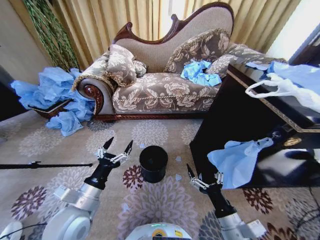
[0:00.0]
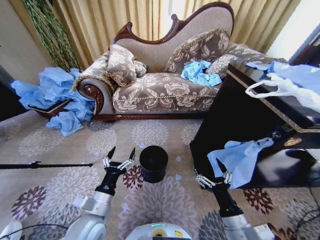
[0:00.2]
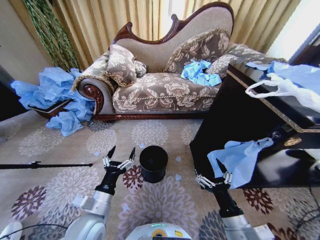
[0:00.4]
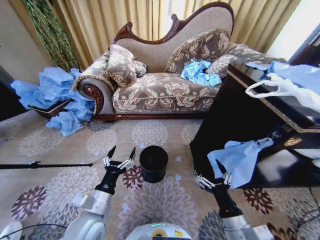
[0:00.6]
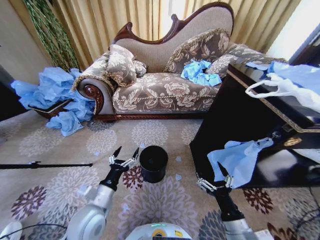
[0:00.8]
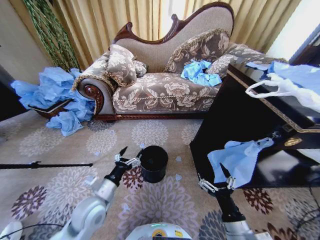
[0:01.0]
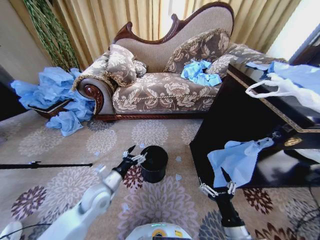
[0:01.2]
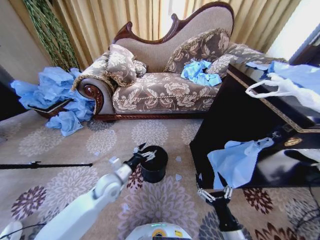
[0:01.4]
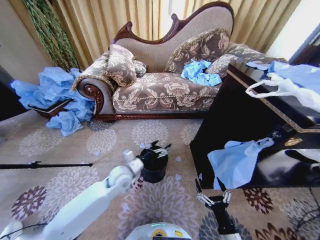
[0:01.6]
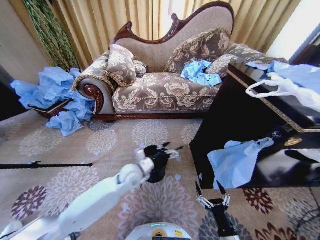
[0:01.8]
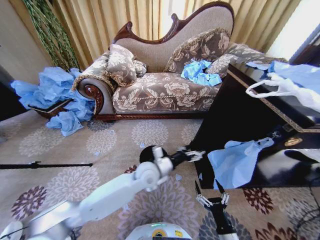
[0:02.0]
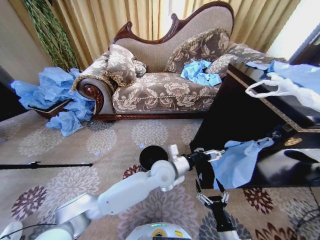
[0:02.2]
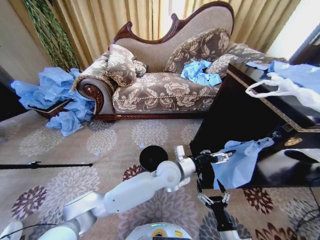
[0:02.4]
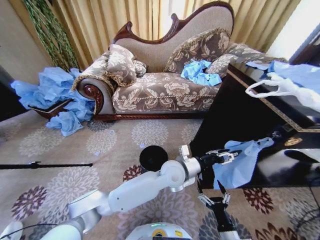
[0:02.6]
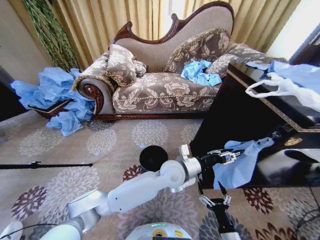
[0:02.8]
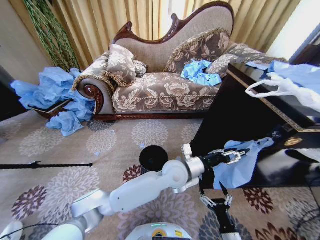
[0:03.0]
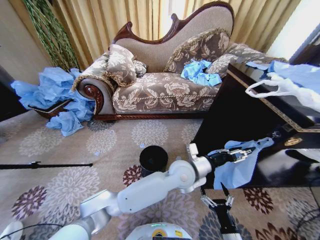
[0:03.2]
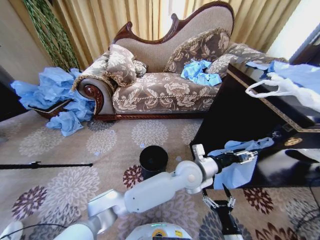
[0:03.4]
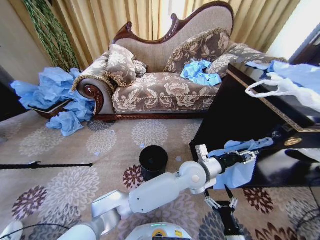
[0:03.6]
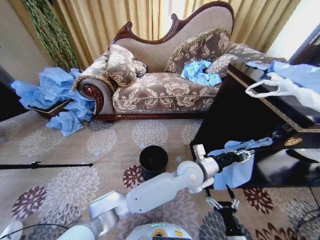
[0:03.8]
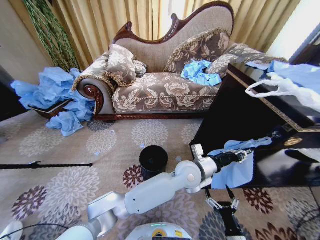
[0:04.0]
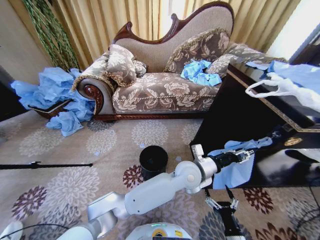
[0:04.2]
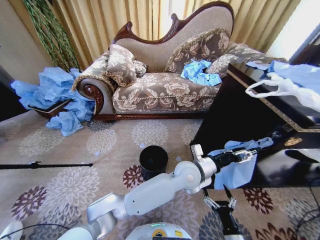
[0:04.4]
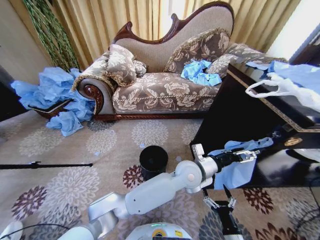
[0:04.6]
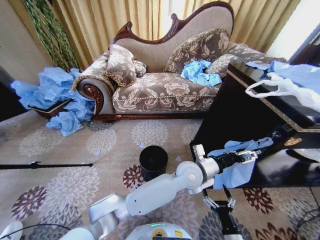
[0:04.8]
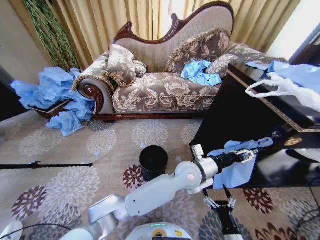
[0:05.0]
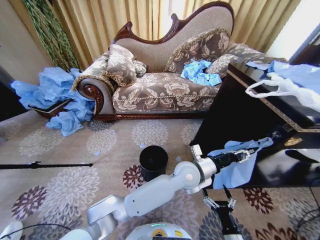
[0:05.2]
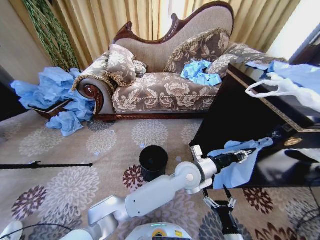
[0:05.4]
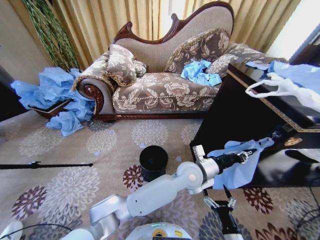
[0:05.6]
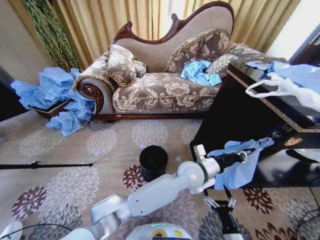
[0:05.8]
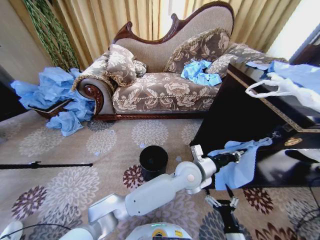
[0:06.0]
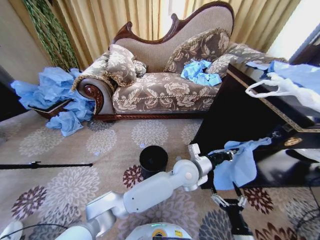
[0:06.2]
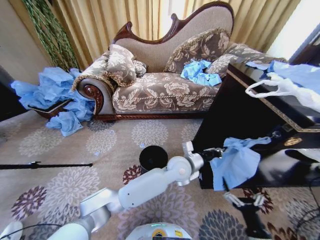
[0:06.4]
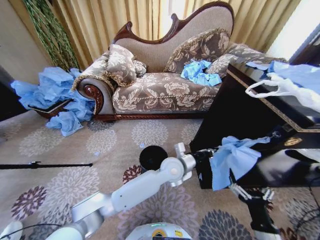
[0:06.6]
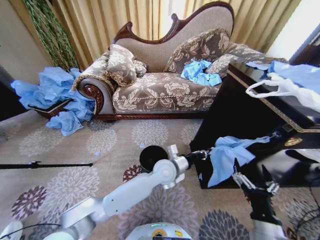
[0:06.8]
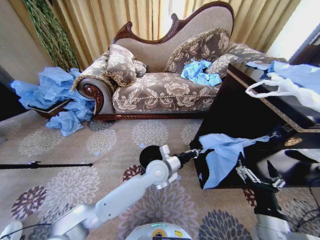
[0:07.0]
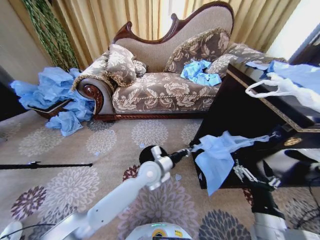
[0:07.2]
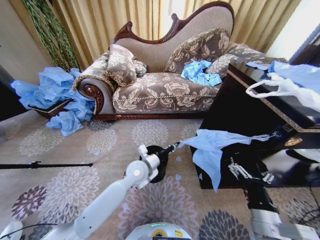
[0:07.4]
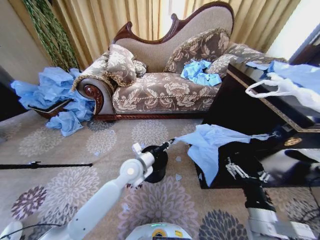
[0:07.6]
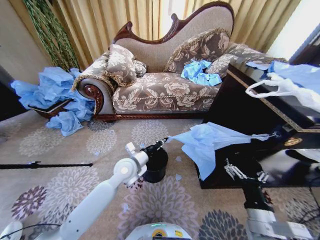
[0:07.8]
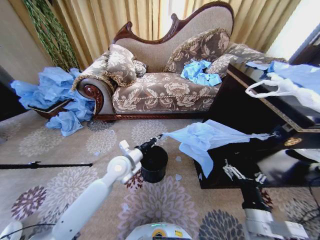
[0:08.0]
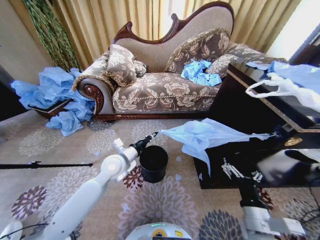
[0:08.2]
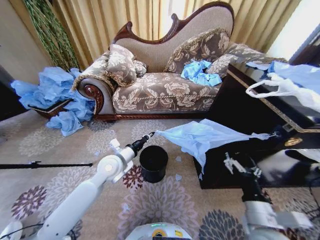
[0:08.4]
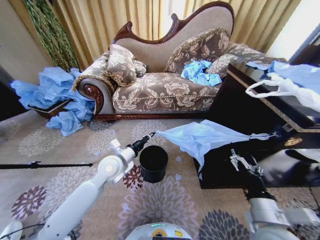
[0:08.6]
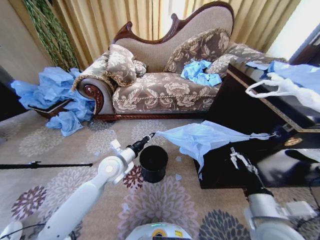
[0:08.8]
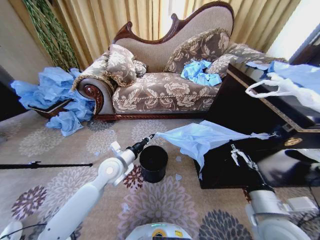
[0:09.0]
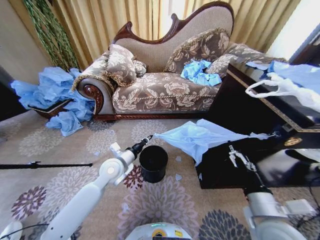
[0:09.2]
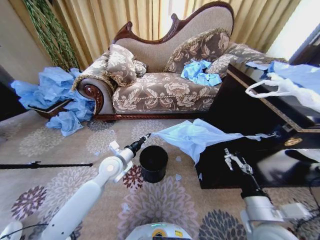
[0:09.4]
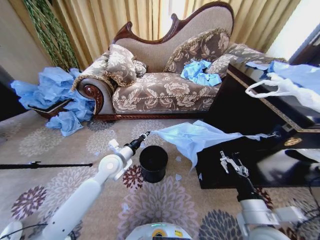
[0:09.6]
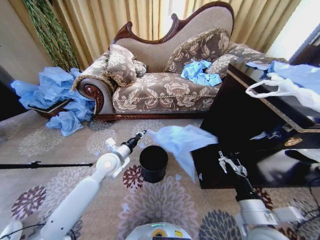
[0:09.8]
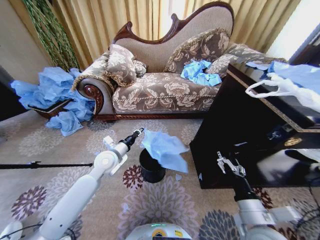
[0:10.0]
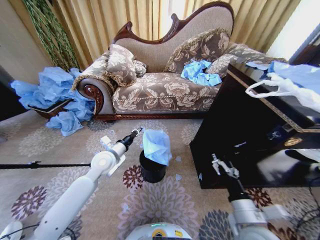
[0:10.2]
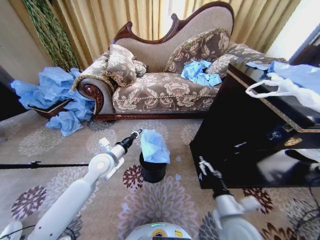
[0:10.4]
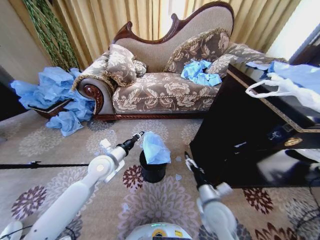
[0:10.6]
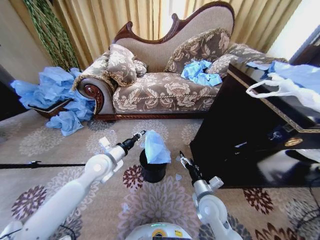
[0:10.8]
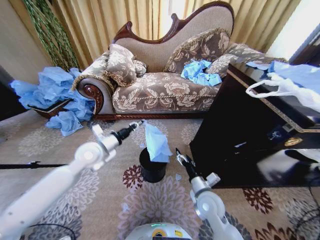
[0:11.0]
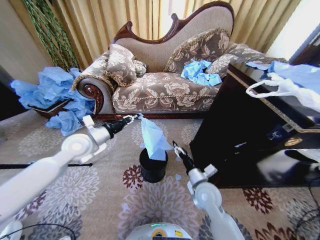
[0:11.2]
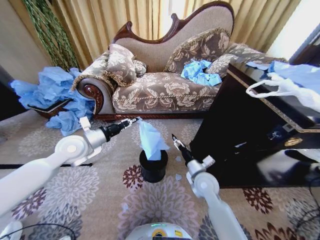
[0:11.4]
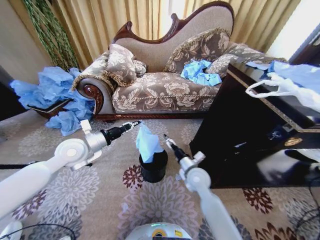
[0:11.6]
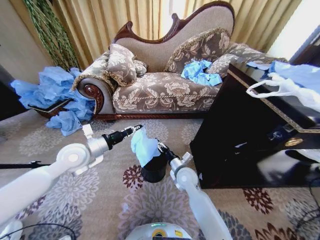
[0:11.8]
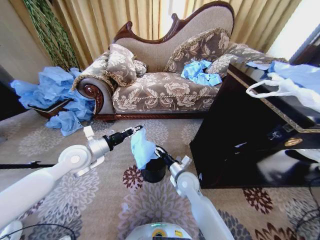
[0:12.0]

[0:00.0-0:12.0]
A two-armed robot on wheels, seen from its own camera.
Task of the whole recording: Place a garbage bag over the trash bin.
0:01.6 to 0:03.0: The left gripper moves to the right, roughly 20 cm, and closes.
0:03.0 to 0:04.4: The left gripper closes, then reopens.
0:04.4 to 0:06.0: The left gripper closes its fingers.
0:06.0 to 0:07.6: The left gripper moves to the left, some 20 cm; the right gripper travels upward by approximately 15 cm.
0:07.6 to 0:09.0: The left gripper travels to the left by some 10 cm. The right gripper shifts by about 5 cm.
0:09.0 to 0:10.4: The right gripper moves downward and to the left, approximately 10 cm.
0:10.4 to 0:12.0: The right gripper travels forward and to the left by about 20 cm; the left gripper moves upward and to the left, approximately 10 cm.

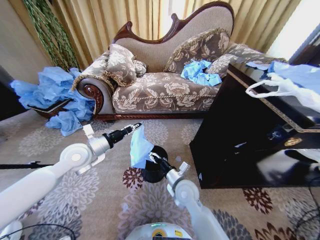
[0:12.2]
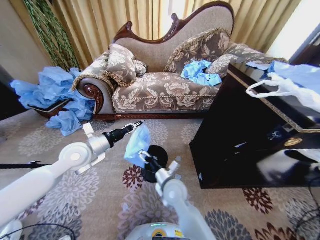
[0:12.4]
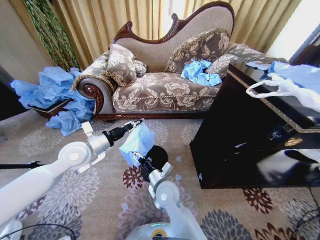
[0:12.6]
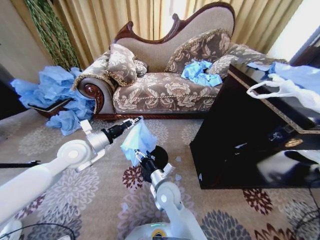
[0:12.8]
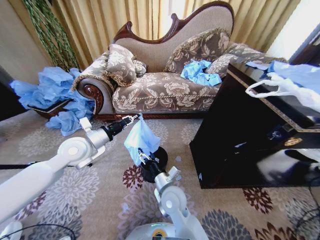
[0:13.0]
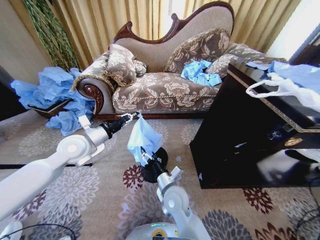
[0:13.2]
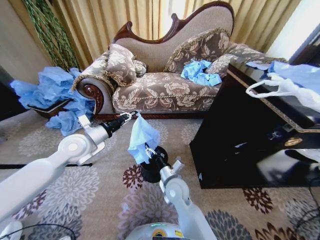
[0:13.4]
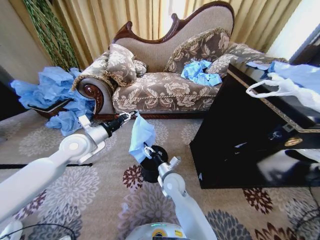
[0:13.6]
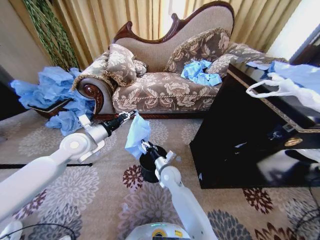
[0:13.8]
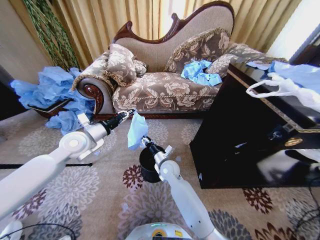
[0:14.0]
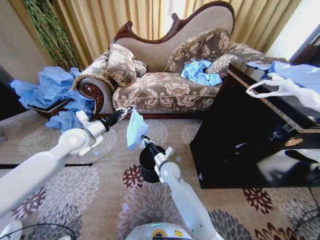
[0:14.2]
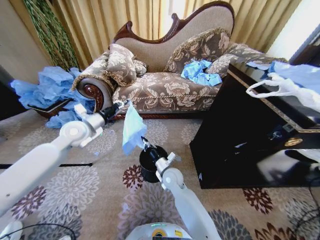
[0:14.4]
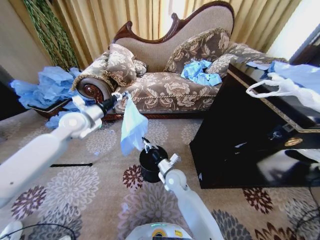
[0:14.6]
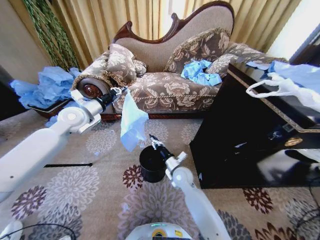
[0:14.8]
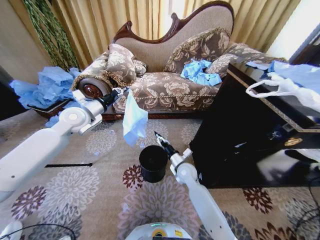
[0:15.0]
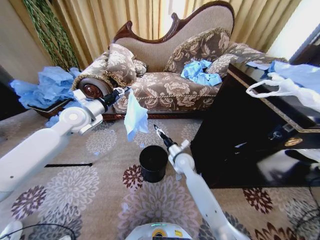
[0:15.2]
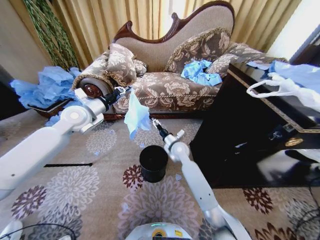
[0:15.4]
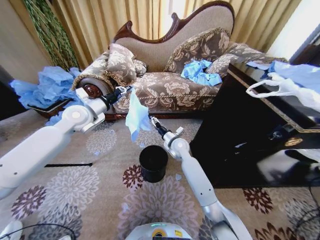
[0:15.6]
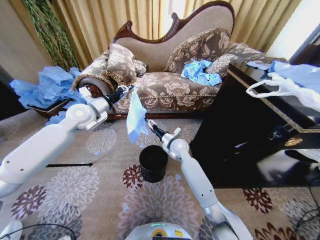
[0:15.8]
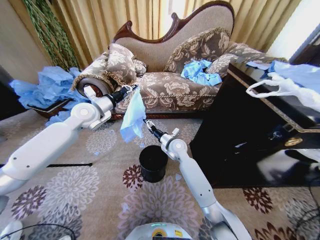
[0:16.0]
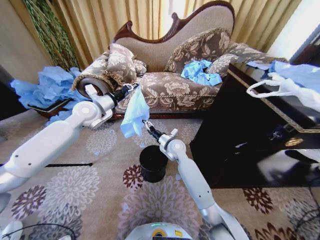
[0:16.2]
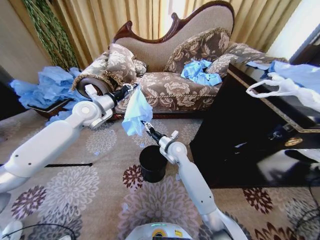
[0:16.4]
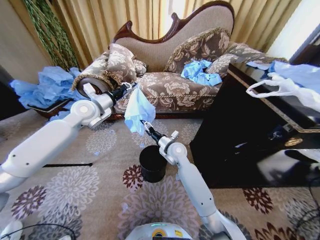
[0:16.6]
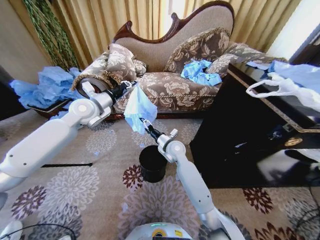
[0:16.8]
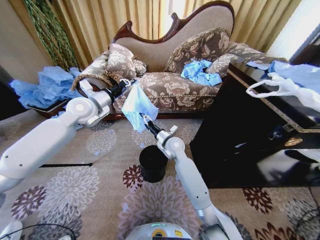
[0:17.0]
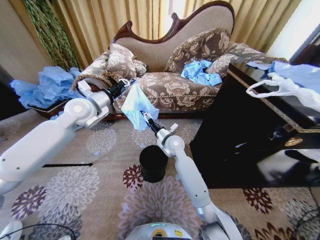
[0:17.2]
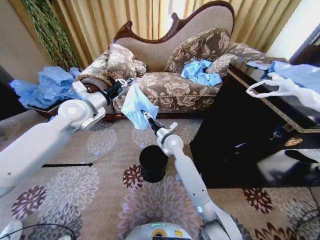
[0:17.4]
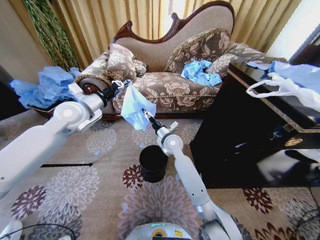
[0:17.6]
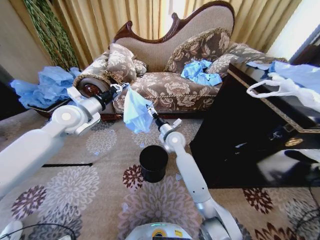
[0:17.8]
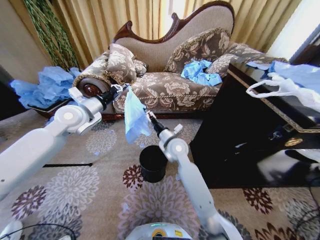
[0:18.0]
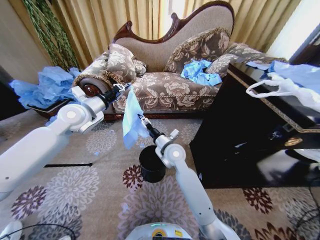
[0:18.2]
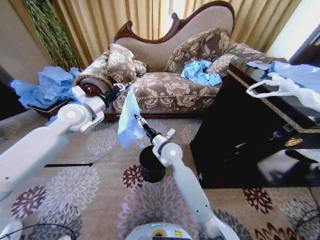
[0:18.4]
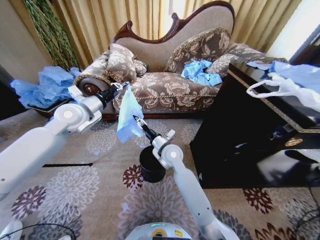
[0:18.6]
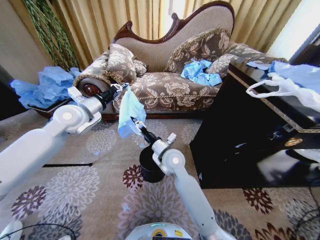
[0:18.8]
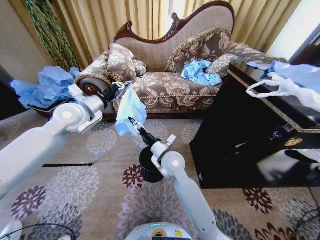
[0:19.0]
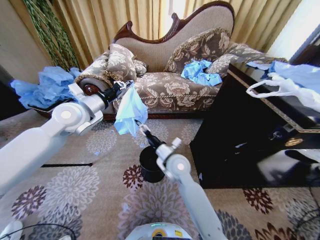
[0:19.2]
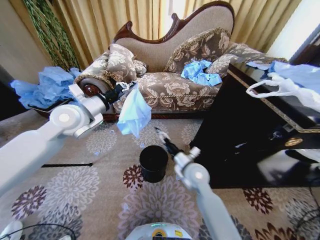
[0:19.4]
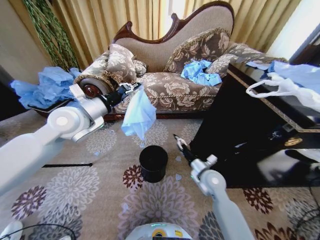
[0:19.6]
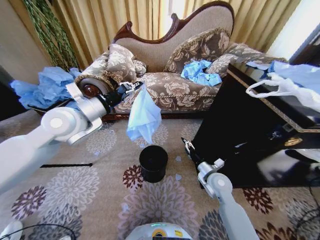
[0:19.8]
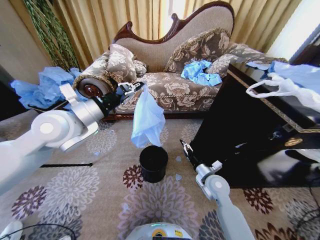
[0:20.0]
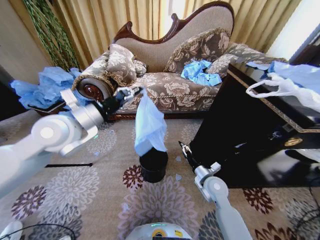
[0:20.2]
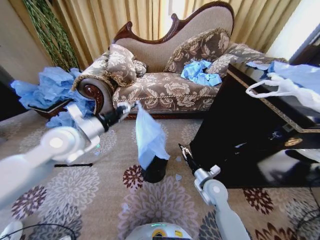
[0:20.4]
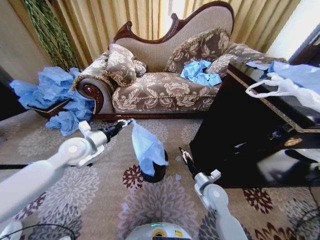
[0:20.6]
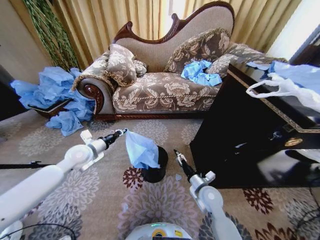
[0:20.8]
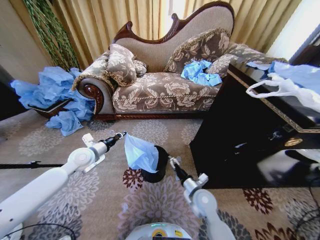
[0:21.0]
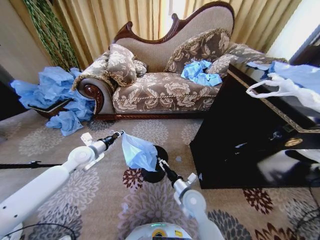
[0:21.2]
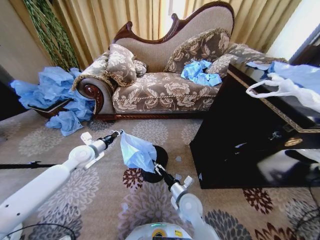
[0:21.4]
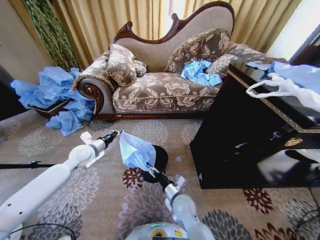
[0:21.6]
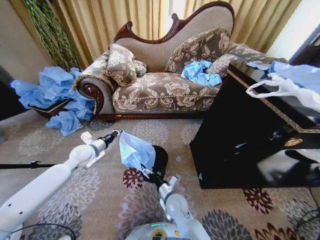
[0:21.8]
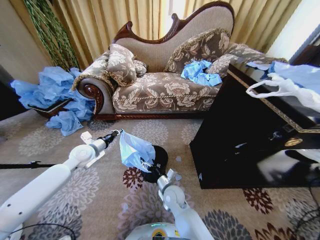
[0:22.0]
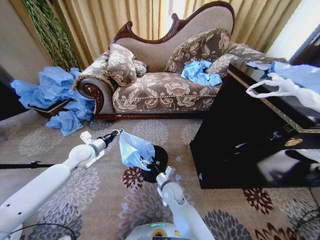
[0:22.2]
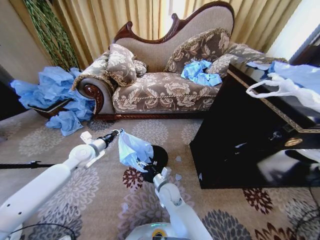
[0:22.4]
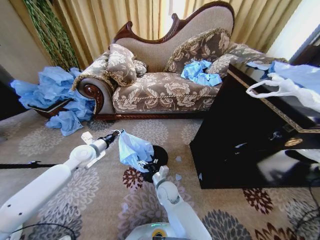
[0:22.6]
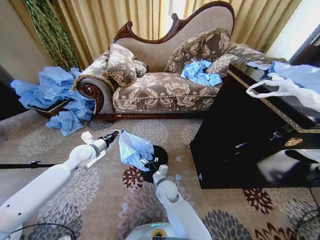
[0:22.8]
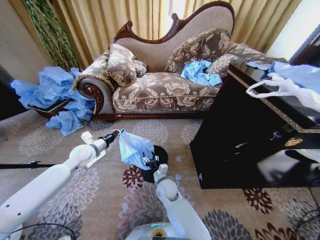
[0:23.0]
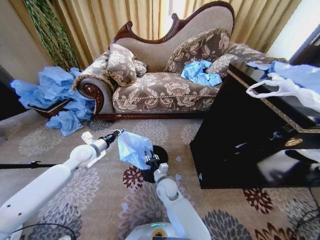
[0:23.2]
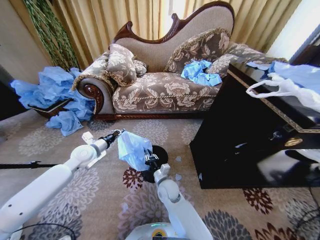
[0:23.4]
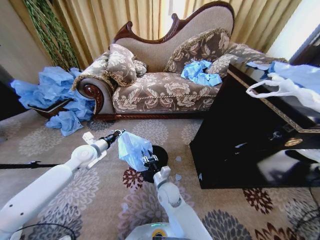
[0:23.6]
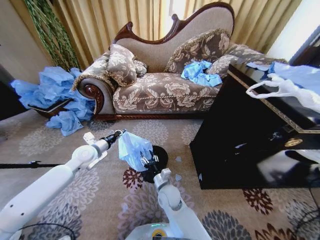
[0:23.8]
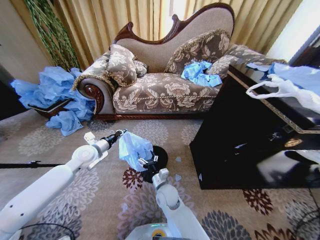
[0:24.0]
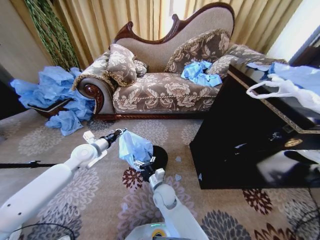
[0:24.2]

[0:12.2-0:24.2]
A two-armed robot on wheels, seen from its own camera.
Task of the whole recording: Place a garbage bag over the trash bin.
0:12.2 to 0:13.8: The right gripper travels forward and to the left by some 10 cm.
0:13.8 to 0:15.2: The left gripper shifts some 10 cm forward and upward; the right gripper heads to the right and forward, covering roughly 10 cm, and closes, then reopens.
0:15.2 to 0:16.6: The right gripper heads upward, covering about 5 cm.
0:16.6 to 0:18.2: The right gripper moves some 5 cm.
0:18.2 to 0:19.8: The right gripper moves to the right and downward, roughly 20 cm; the left gripper heads backward, covering some 5 cm.
0:19.8 to 0:21.2: The right gripper is displaced to the left, backward and downward by roughly 15 cm; the left gripper goes approximately 20 cm downward.
0:21.2 to 0:22.6: The right gripper heads to the left, covering about 10 cm.
0:22.6 to 0:24.2: The right gripper closes, then opens again.
